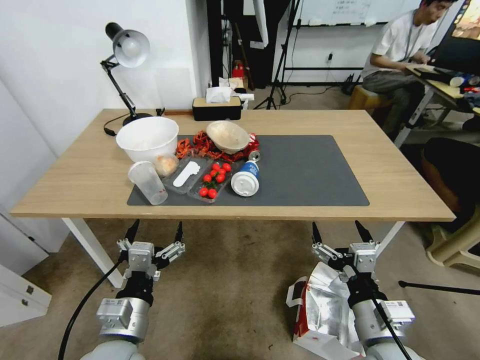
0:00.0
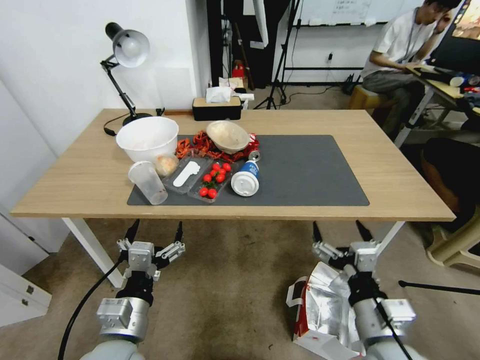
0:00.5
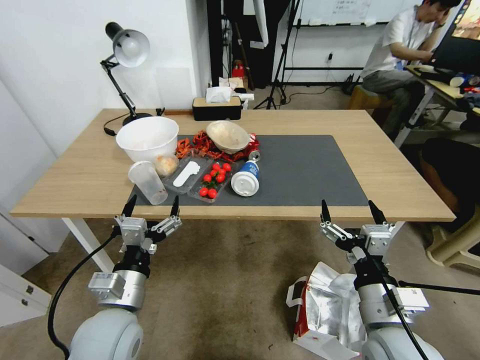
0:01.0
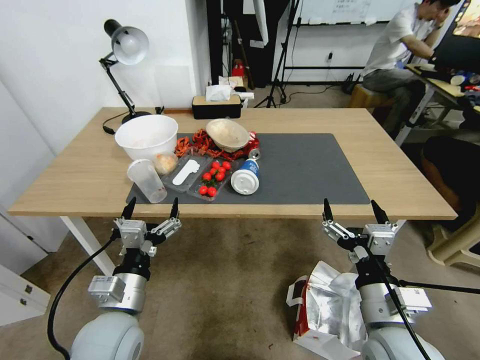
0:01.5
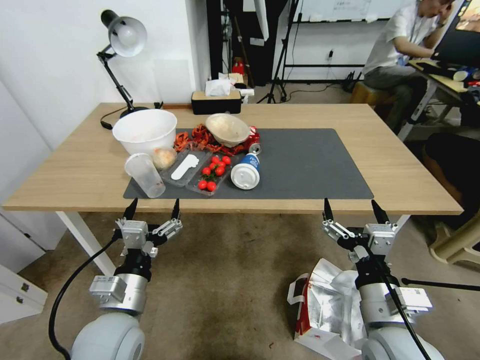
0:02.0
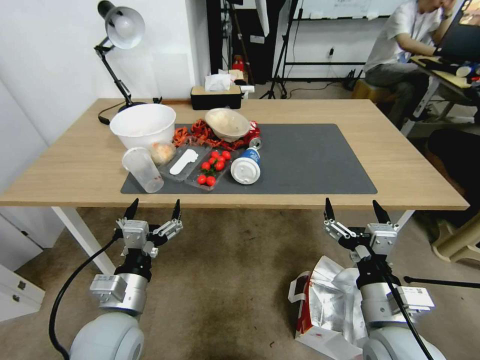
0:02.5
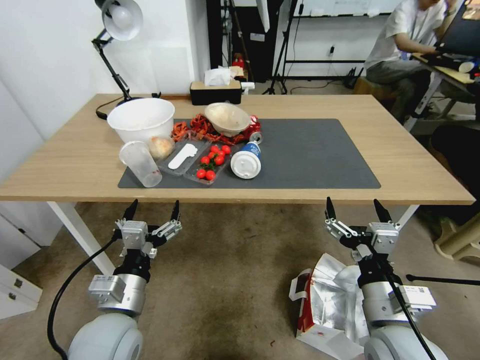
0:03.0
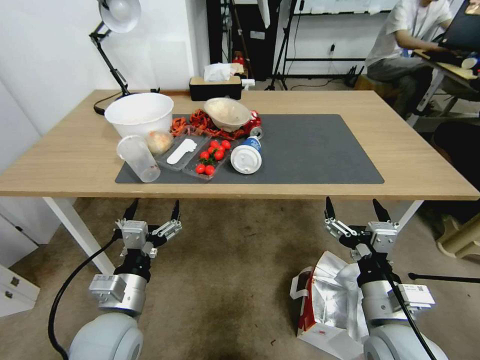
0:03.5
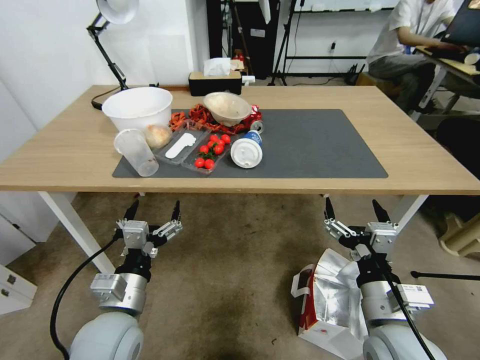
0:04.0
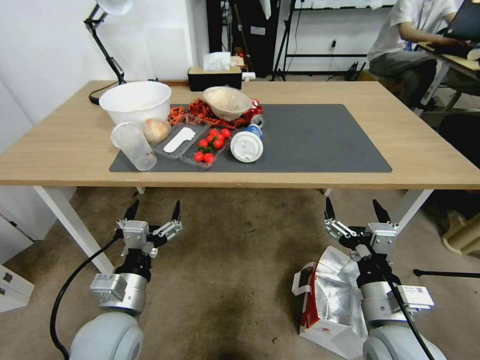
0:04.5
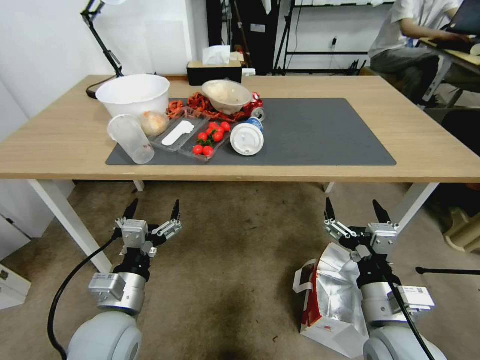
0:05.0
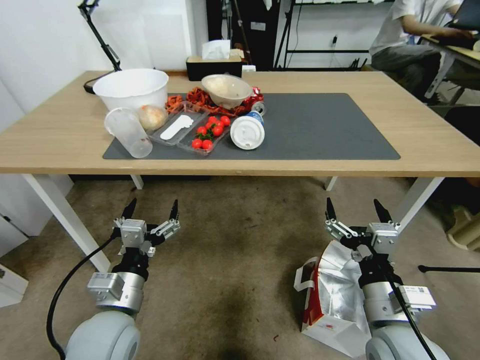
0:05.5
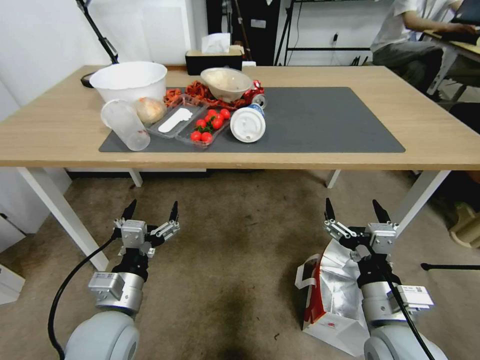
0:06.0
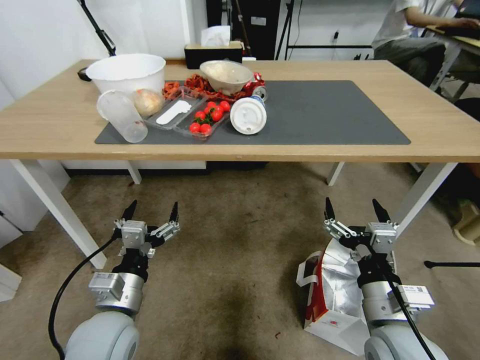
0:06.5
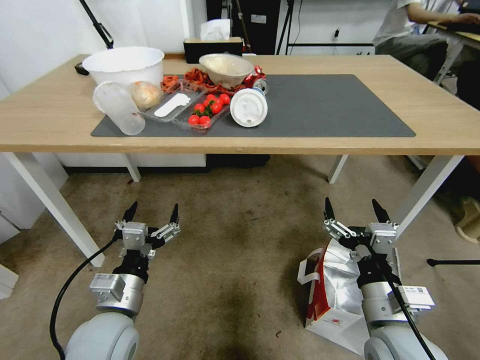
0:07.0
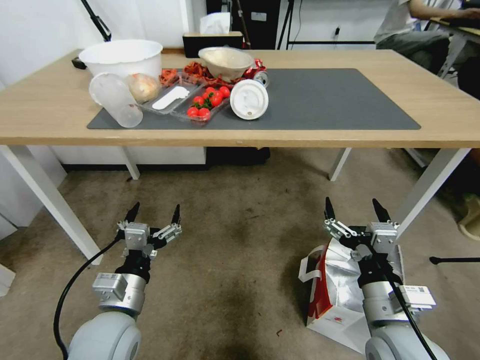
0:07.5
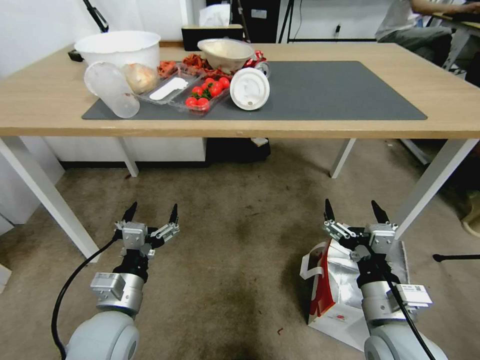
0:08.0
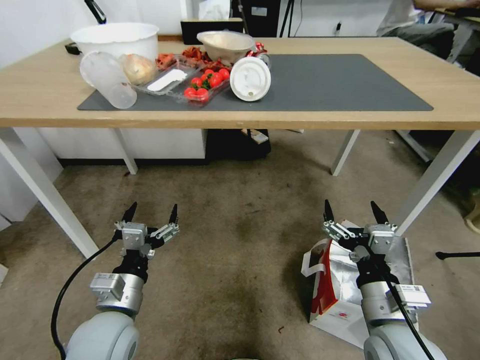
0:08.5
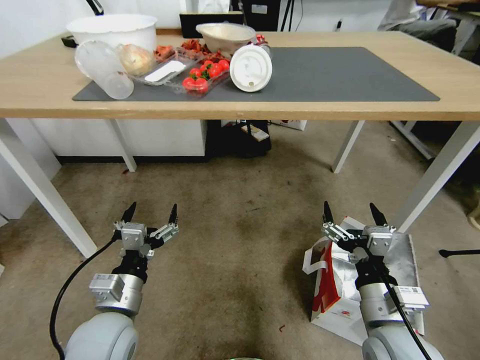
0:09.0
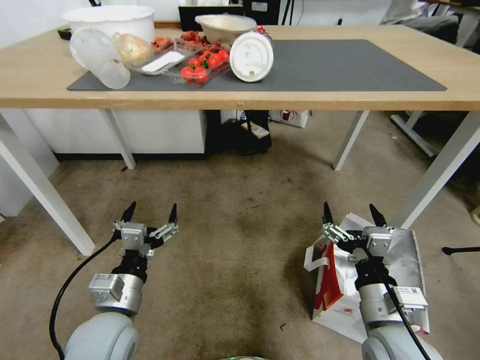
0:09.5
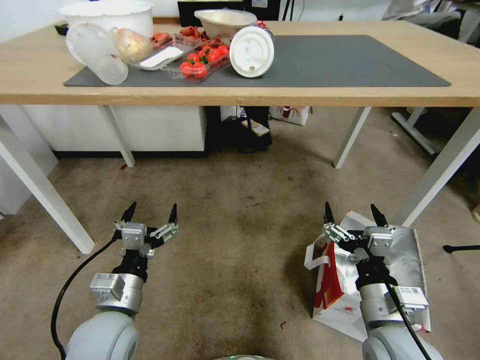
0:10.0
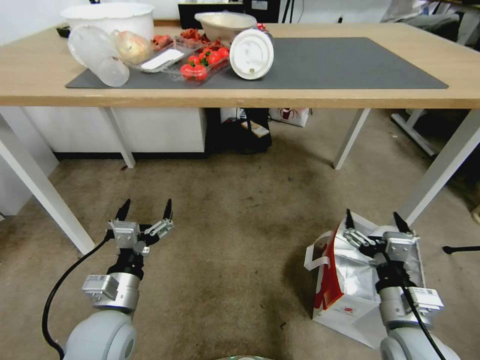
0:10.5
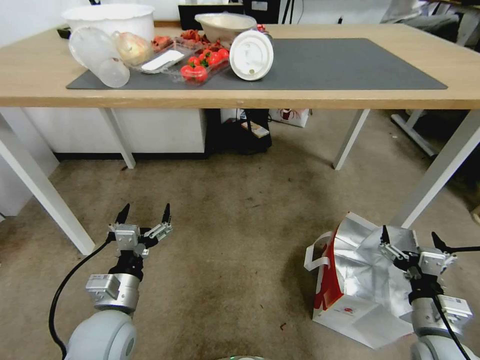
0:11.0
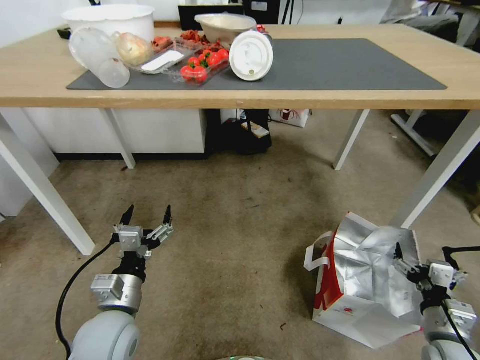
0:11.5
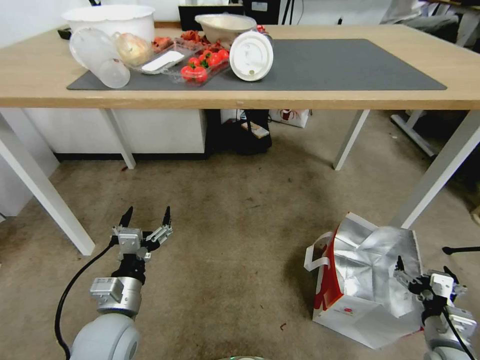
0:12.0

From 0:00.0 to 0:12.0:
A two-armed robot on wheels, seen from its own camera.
Task of the whole recording: Pick up the food delivery bag from the floor and place it on the table.
From 0:10.0 to 0:12.0: The right gripper goes roughly 20 cm to the right and downward.

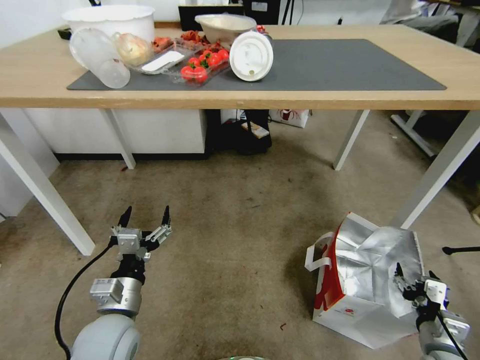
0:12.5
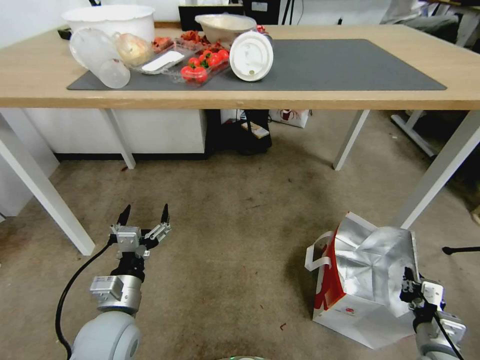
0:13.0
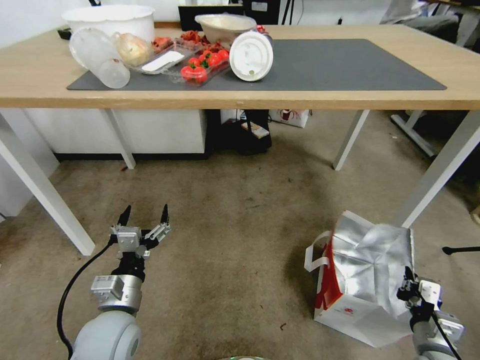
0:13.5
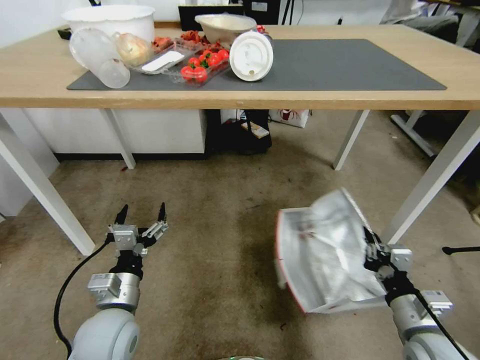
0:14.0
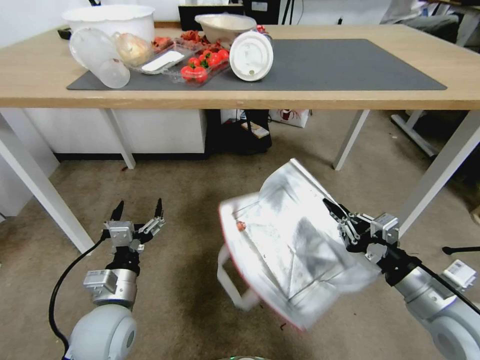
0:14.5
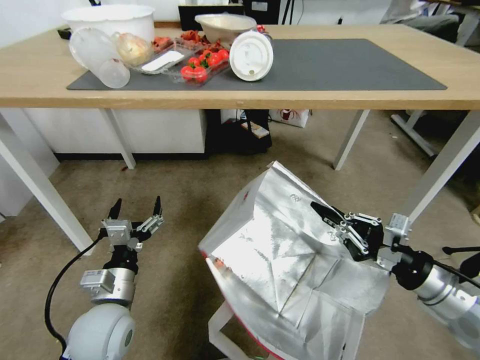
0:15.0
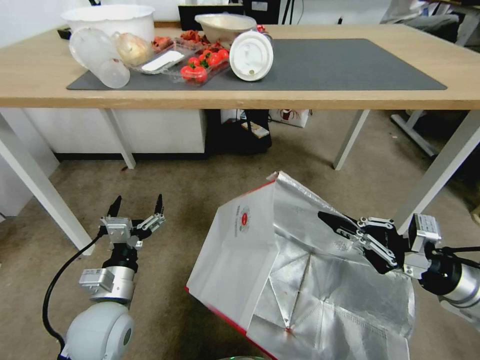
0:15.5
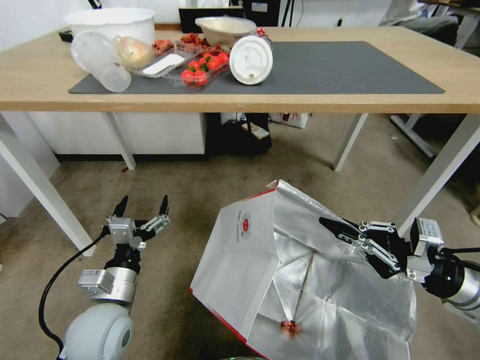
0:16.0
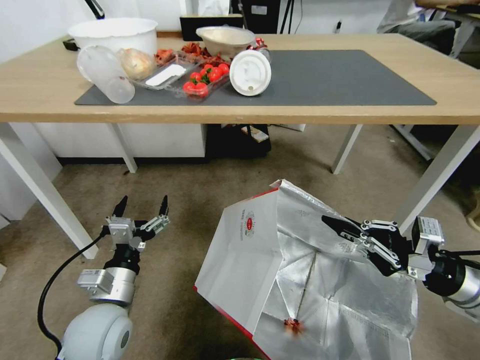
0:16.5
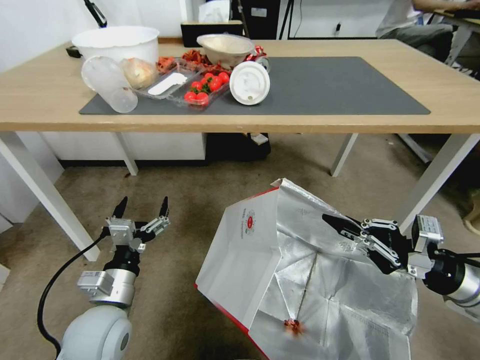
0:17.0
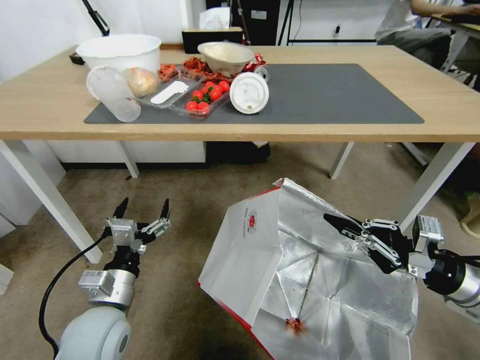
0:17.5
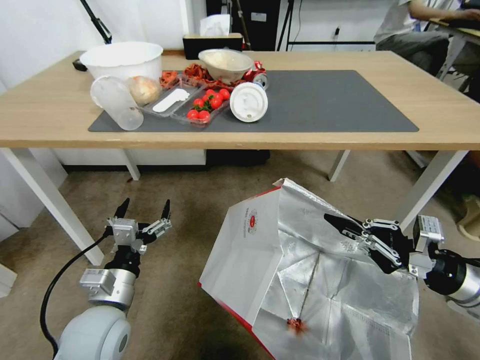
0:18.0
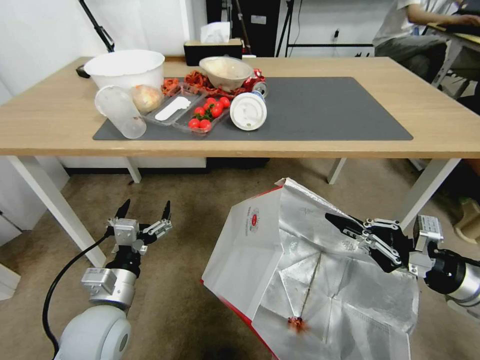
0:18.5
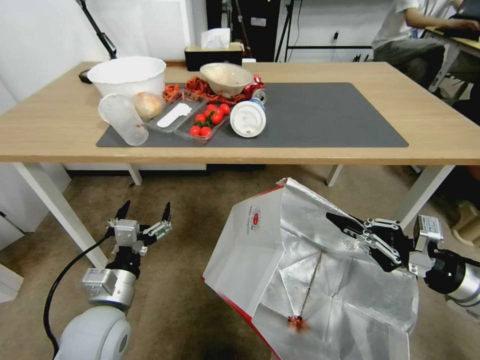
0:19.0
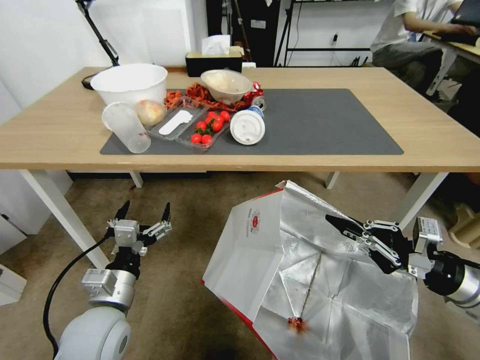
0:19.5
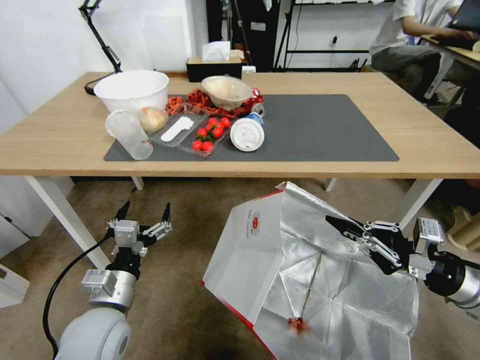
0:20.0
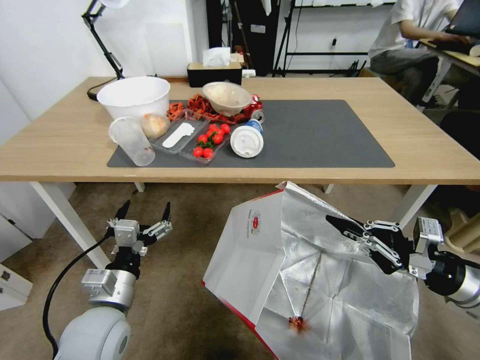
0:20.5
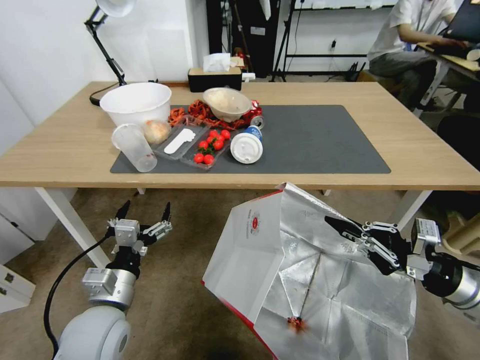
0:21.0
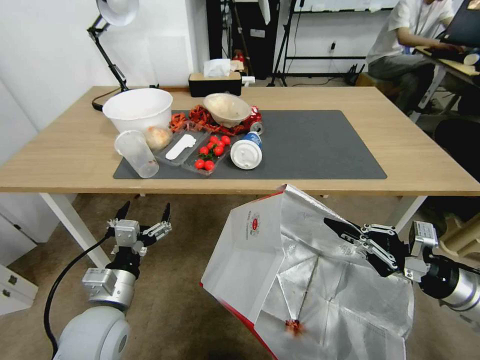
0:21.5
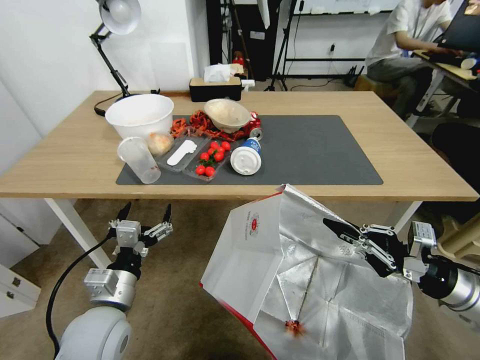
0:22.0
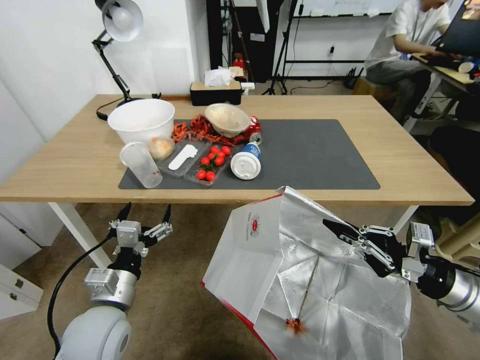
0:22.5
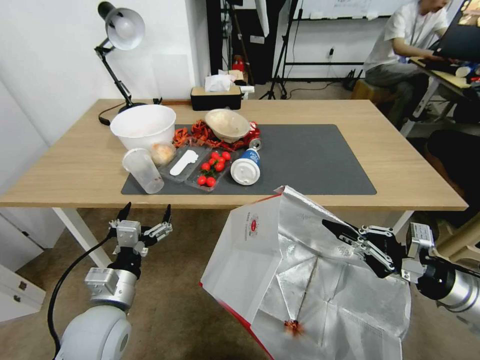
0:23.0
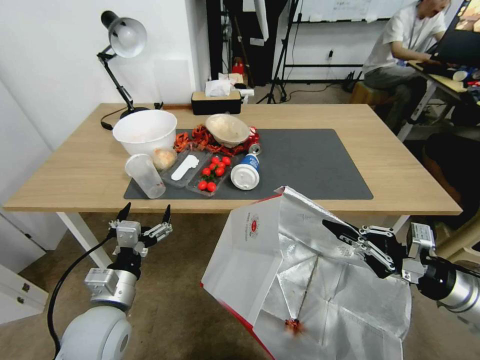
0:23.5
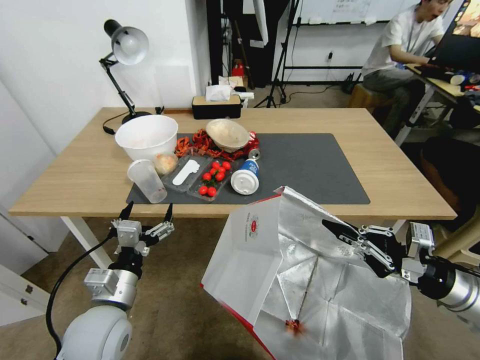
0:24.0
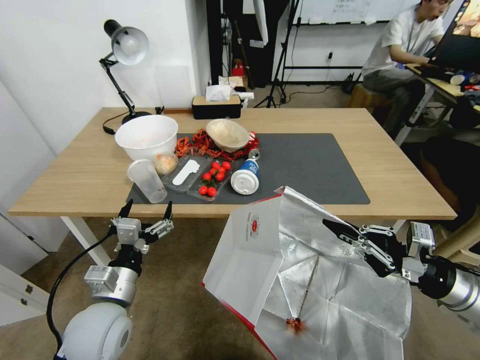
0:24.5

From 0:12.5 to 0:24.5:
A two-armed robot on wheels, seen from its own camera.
Task of the whole recording: Pick up the food delivery bag from the floor and place it on the table.
From 0:12.5 to 0:14.5: The right gripper goes about 20 cm upward, and closes up.
From 0:14.5 to 0:16.5: The right gripper shifts approximately 5 cm to the right.

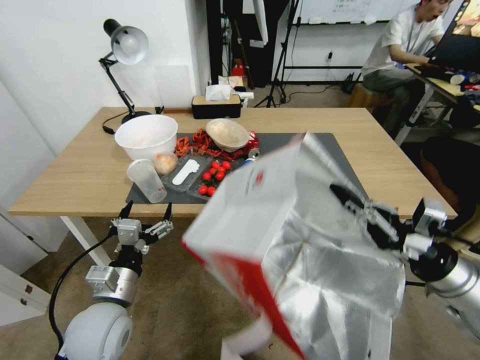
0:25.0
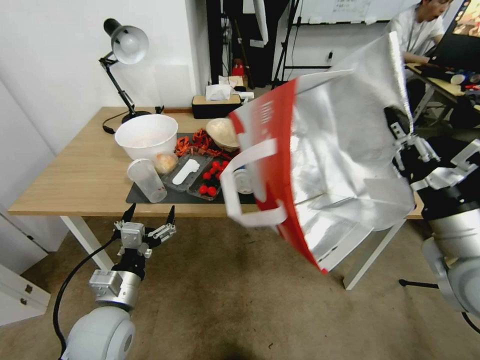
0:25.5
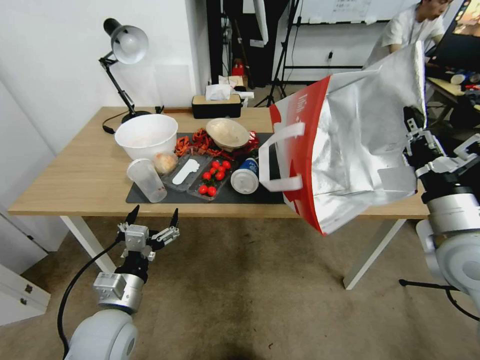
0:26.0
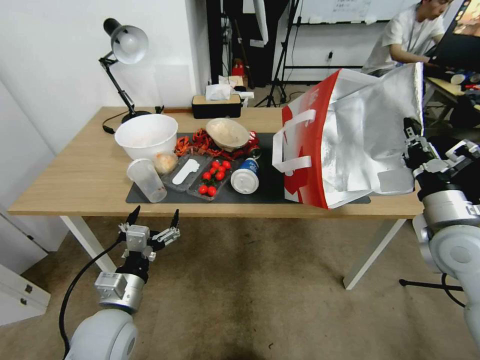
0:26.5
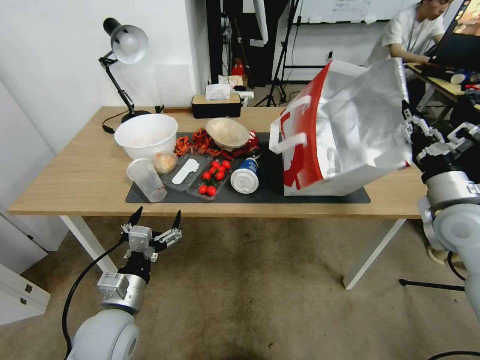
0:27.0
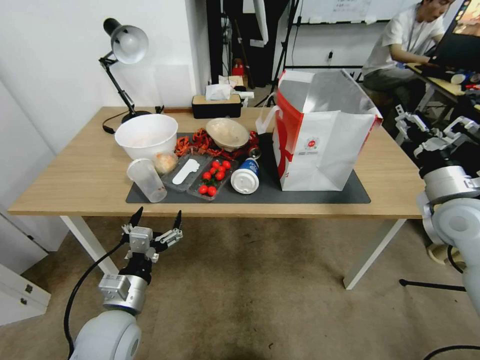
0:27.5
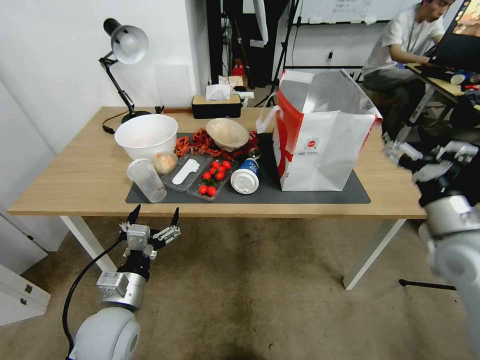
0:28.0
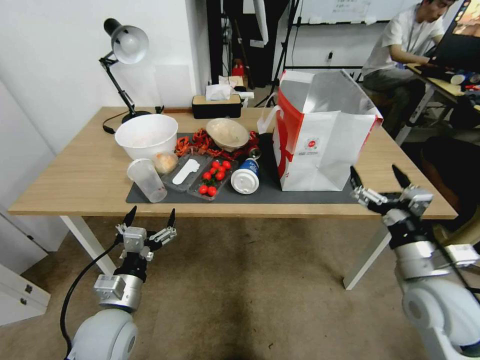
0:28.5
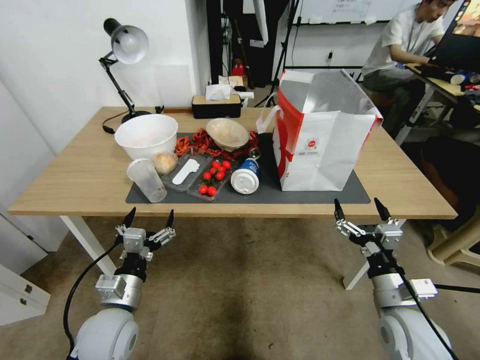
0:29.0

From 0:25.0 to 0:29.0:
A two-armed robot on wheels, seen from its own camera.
Task of the whole recording: Pick up the food delivery bag from the floor and place it on the table.
From 0:25.0 to 0:27.0: The right gripper goes about 10 cm forward, and opens its fingers.
From 0:27.0 to 0:29.0: The right gripper is displaced downward, backward and to the left by some 20 cm, and opens its fingers.
